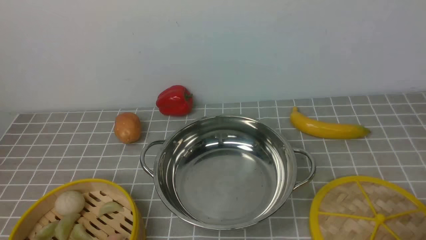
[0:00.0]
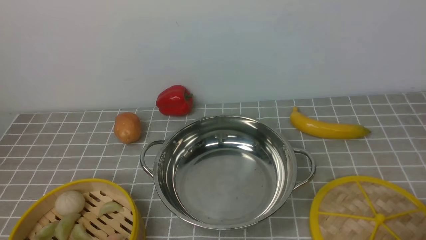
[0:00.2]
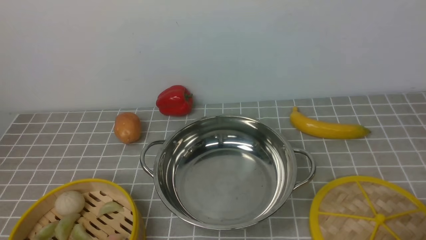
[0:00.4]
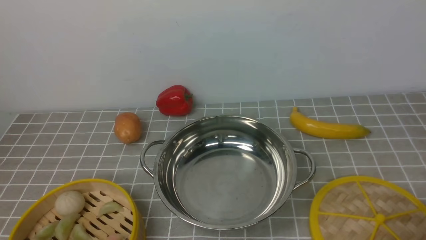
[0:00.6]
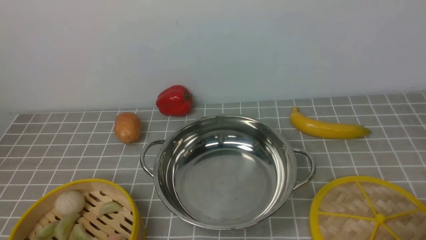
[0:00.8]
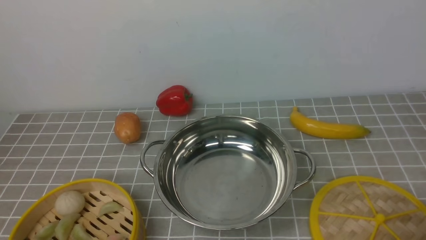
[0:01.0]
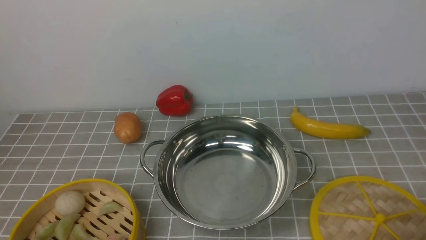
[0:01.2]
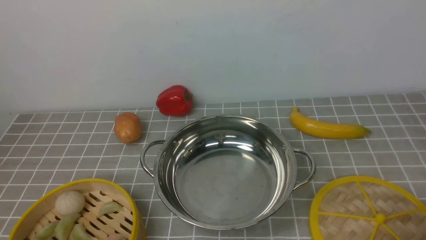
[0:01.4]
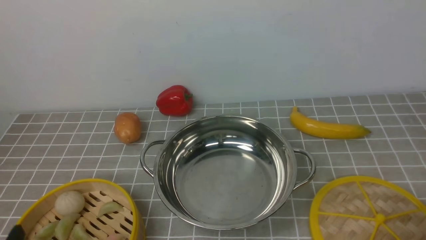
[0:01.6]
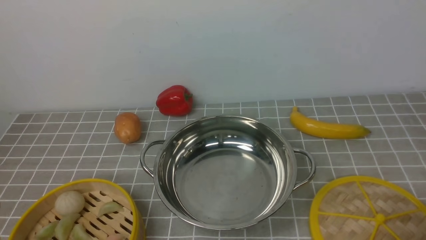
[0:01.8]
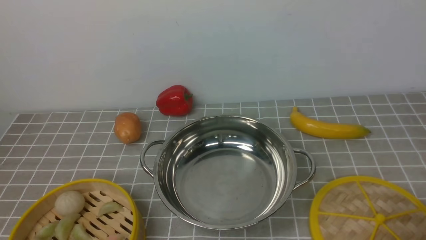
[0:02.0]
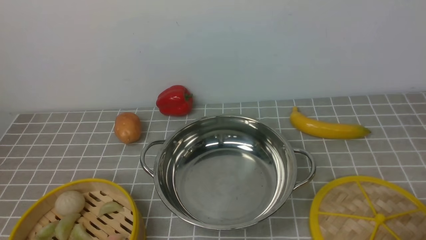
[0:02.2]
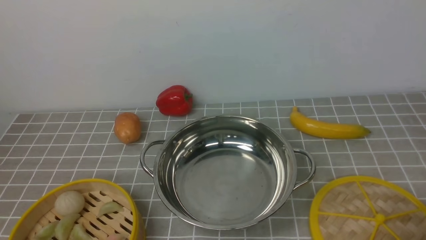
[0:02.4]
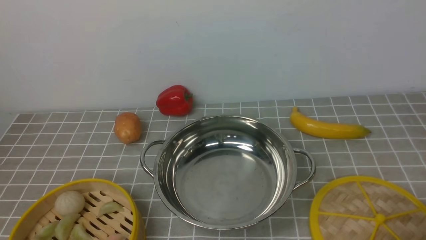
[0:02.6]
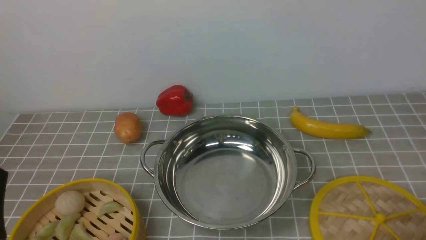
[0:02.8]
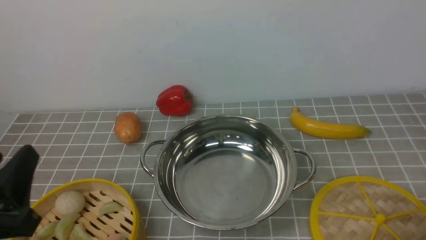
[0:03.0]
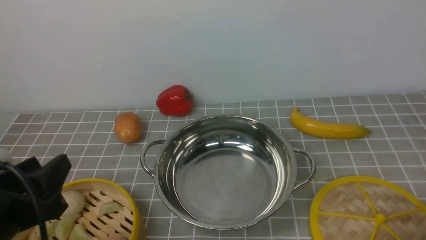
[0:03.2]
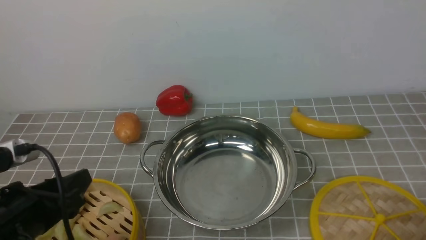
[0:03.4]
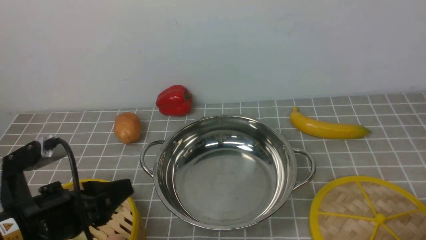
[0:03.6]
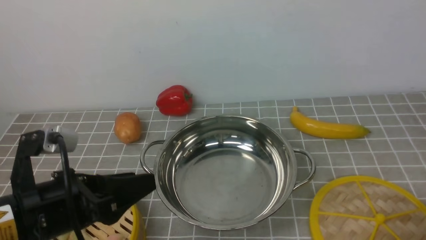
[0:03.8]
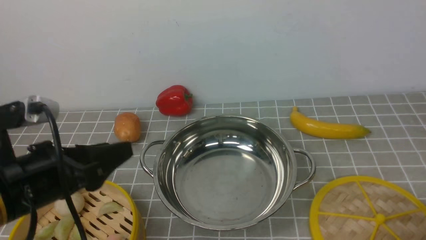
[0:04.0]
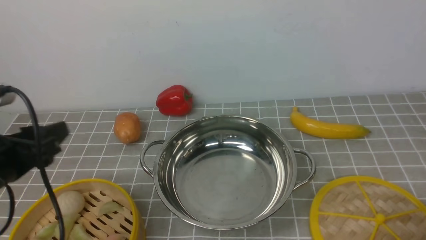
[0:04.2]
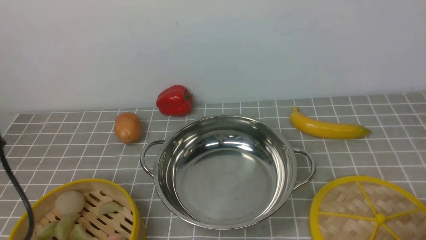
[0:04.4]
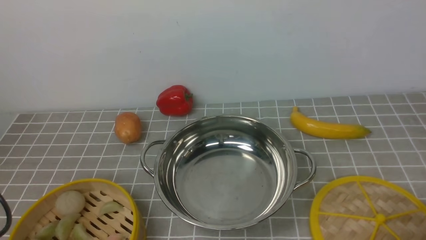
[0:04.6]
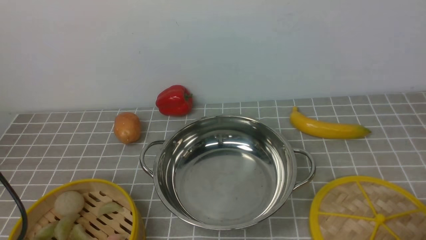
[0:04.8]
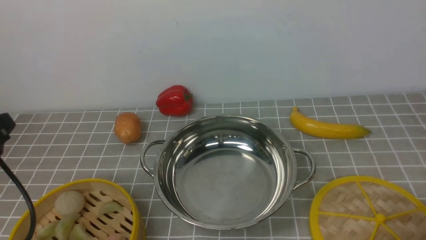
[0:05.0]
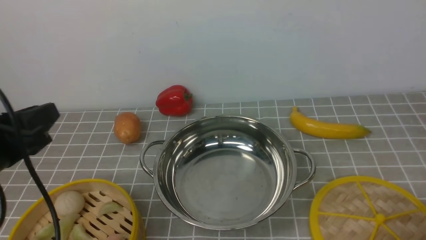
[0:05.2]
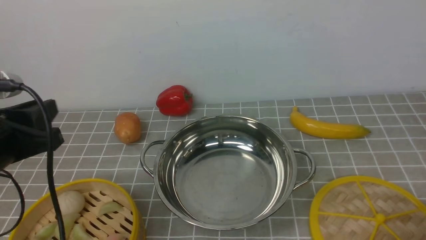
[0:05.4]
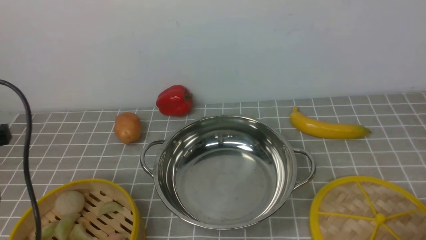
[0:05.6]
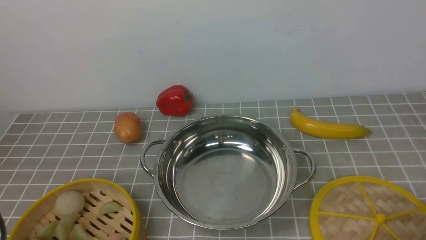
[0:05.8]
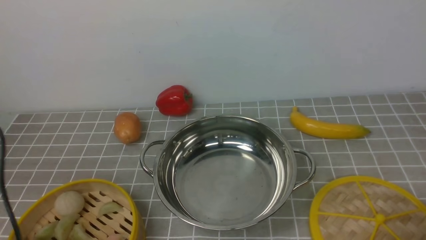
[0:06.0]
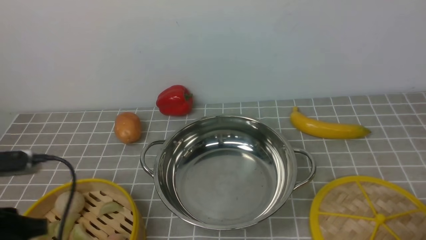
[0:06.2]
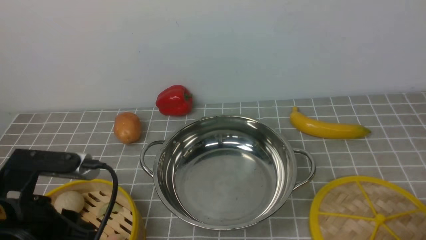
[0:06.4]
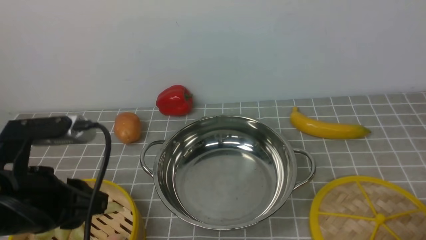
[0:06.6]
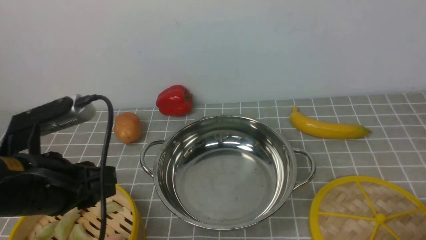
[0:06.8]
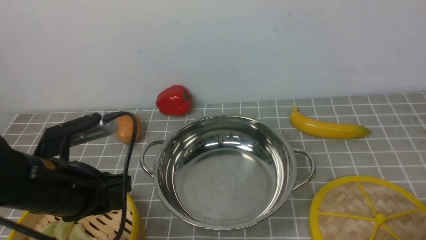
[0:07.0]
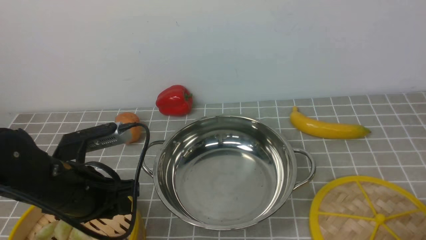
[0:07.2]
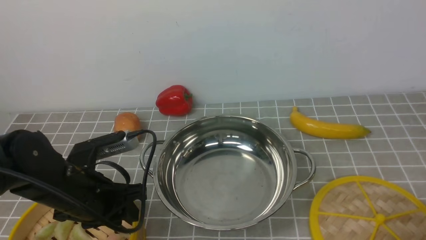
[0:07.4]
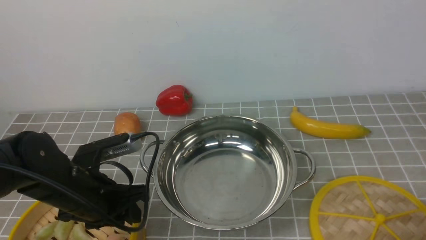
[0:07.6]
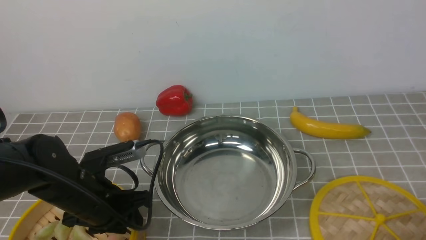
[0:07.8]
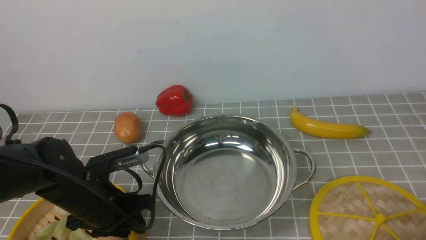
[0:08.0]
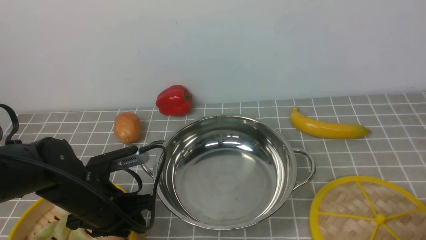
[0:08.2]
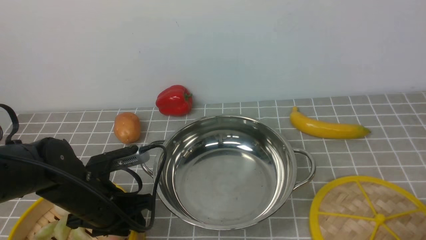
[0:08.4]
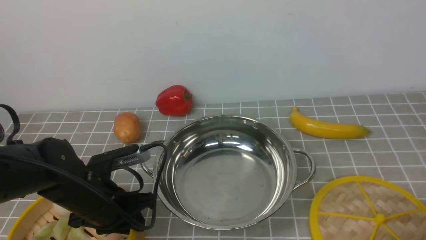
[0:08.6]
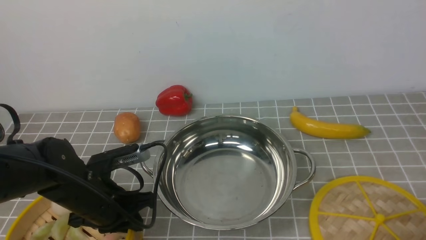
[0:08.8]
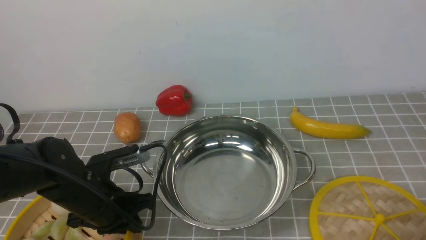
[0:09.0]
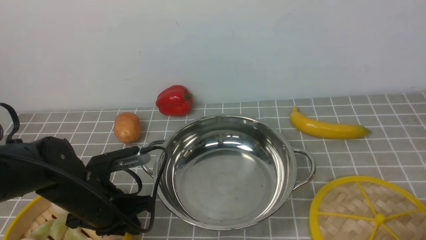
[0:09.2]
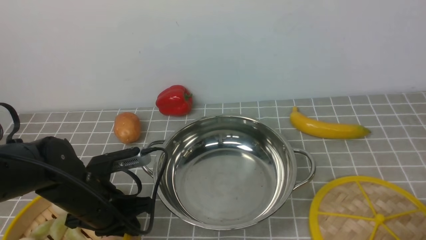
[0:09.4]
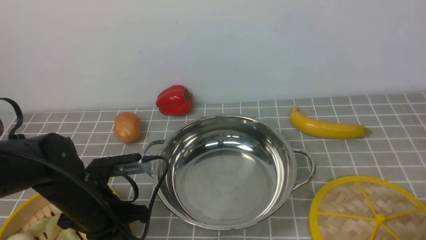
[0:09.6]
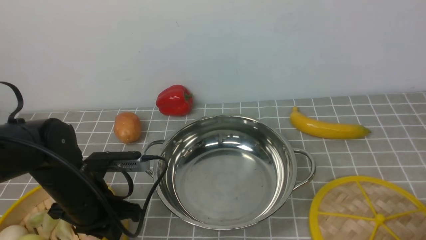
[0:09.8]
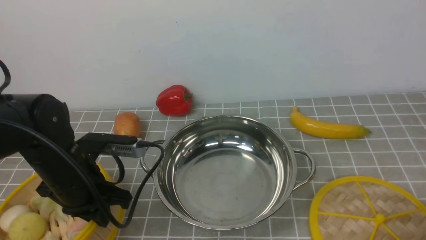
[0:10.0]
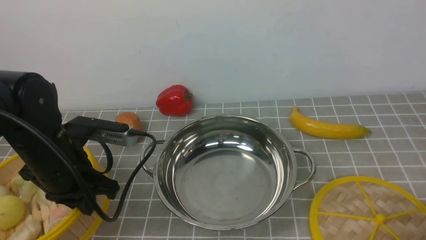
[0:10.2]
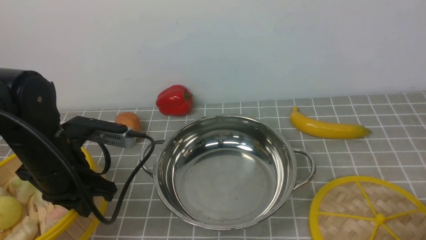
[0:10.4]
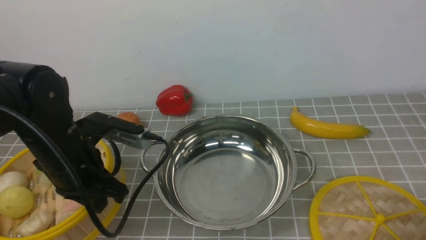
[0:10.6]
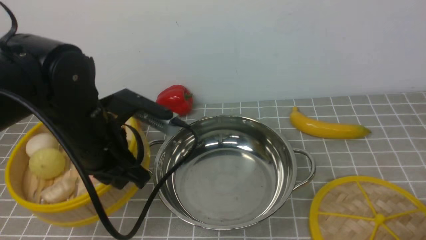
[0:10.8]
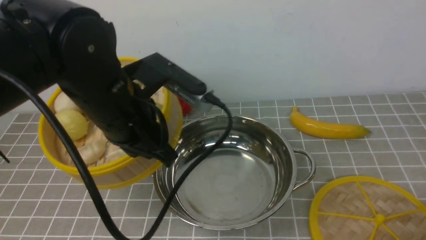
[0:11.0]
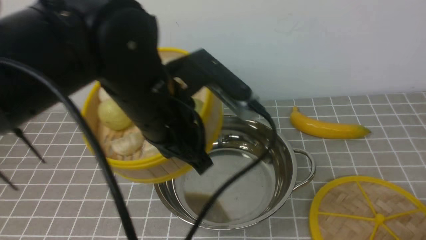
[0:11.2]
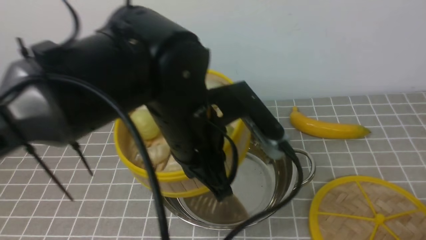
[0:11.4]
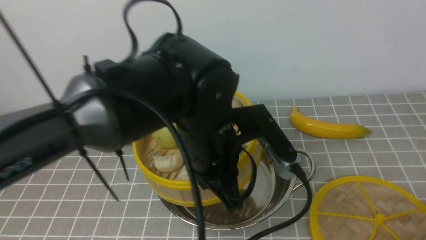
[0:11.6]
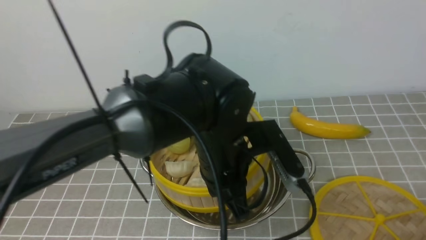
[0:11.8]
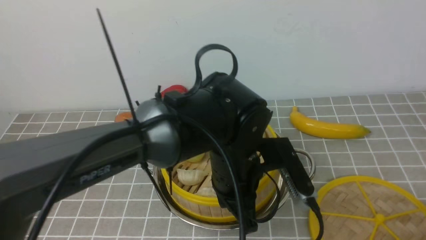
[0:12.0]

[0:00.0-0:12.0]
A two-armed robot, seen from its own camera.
Task of the whole recording: place the steamer in the pot on the grey tablecloth, and put the lid on the steamer.
Step, 0:00.0 to 0:10.0: use the left arm to lift the steamer closest to it.
0:01.6 to 0:03.0: The left gripper travels upward by approximately 10 cm.
0:03.0 to 0:04.4: The left gripper is displaced forward and to the left by approximately 10 cm.
0:04.4 to 0:06.0: The left gripper closes.
0:06.0 to 0:07.6: The left gripper moves to the right, downward and forward, roughly 15 cm.
0:07.6 to 0:09.0: The left gripper closes.
0:09.0 to 0:10.4: The left gripper is displaced upward by about 10 cm.
0:10.4 to 0:12.0: The left gripper shifts about 20 cm to the right.

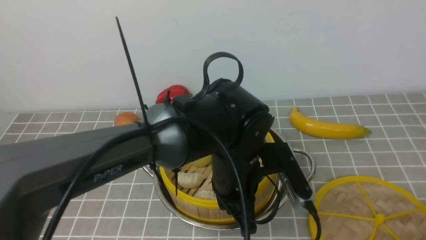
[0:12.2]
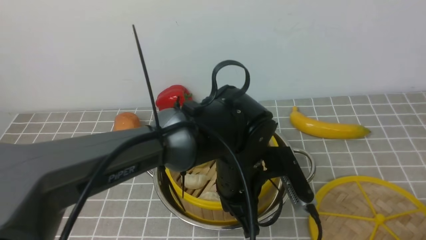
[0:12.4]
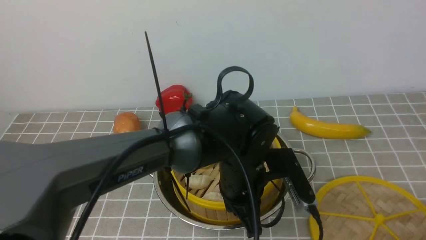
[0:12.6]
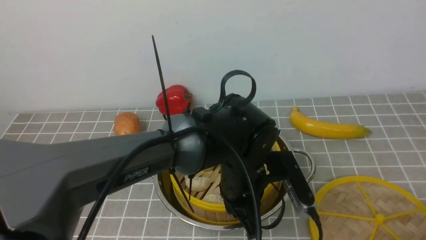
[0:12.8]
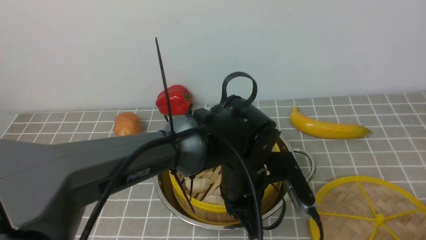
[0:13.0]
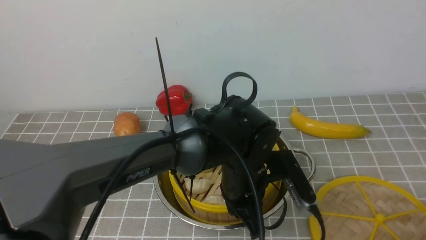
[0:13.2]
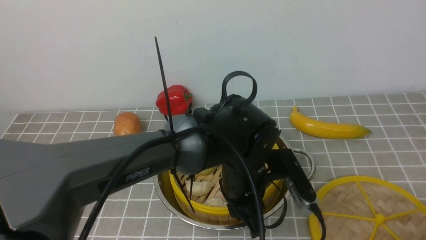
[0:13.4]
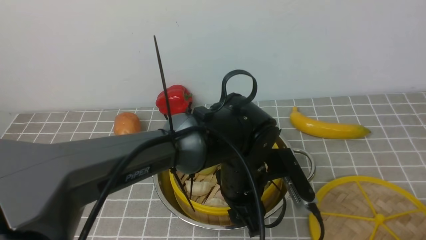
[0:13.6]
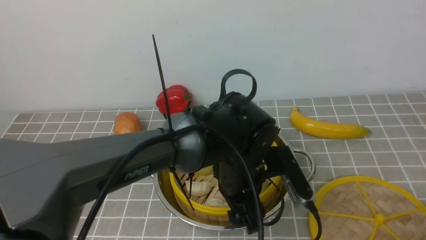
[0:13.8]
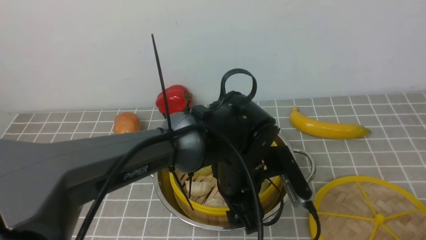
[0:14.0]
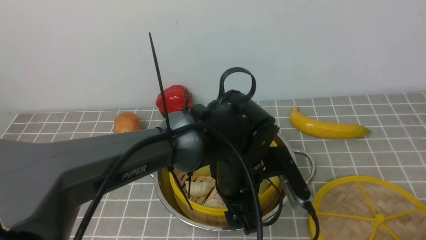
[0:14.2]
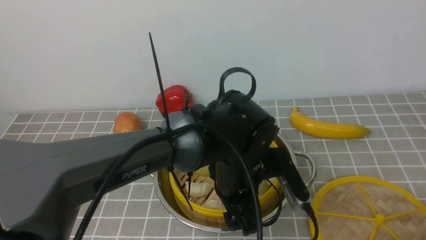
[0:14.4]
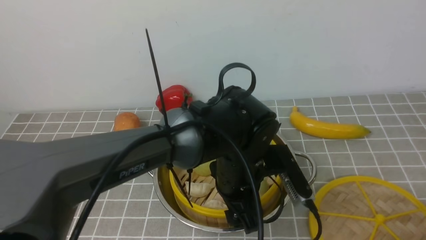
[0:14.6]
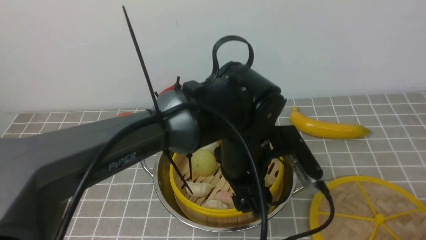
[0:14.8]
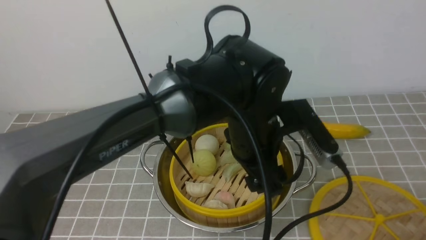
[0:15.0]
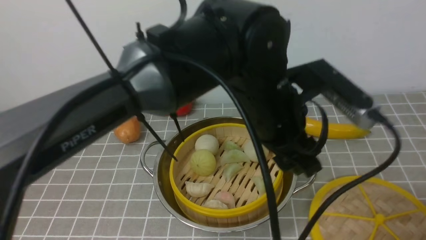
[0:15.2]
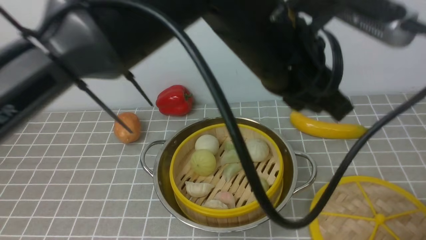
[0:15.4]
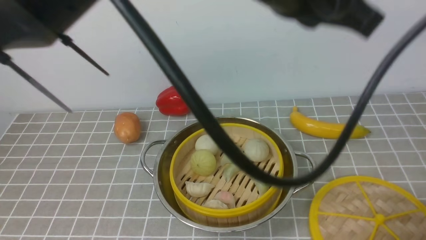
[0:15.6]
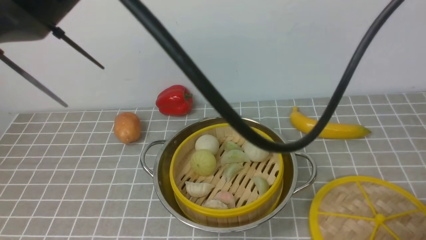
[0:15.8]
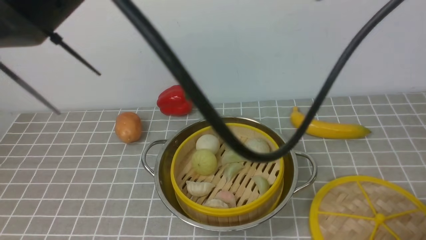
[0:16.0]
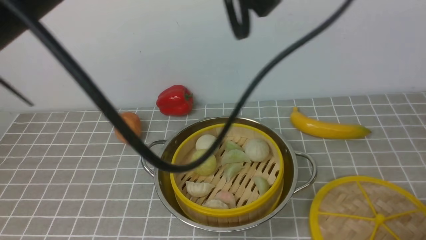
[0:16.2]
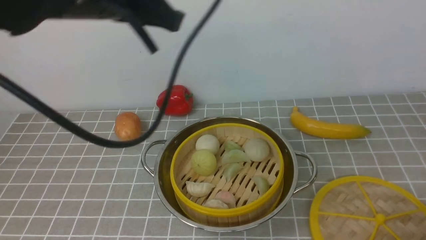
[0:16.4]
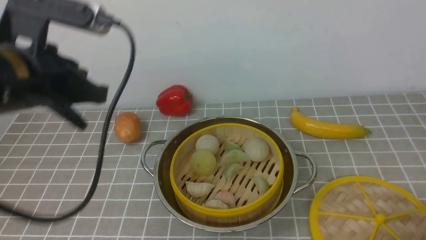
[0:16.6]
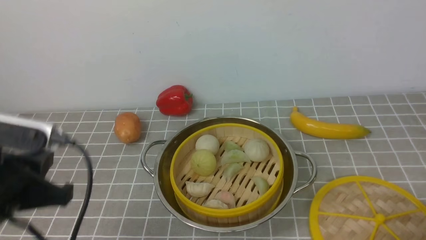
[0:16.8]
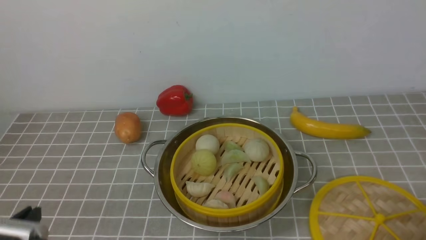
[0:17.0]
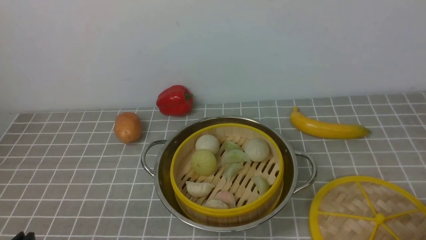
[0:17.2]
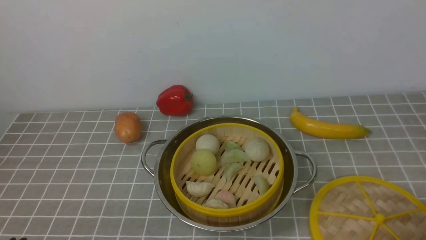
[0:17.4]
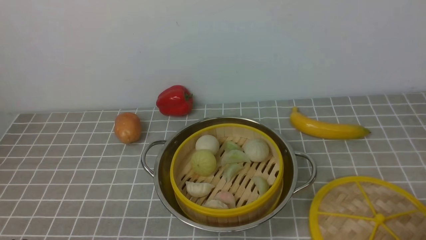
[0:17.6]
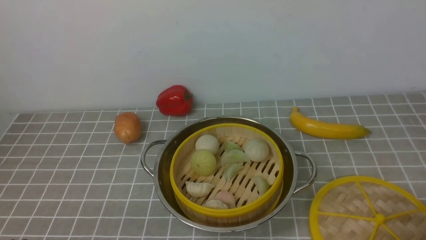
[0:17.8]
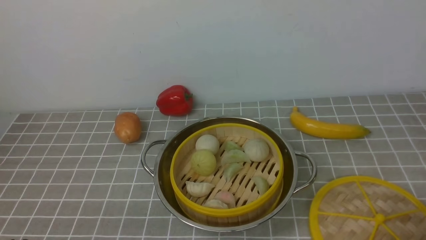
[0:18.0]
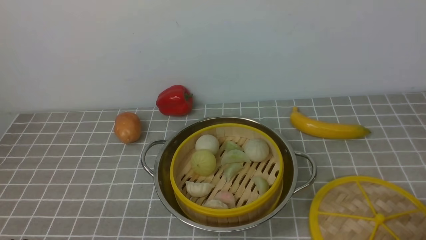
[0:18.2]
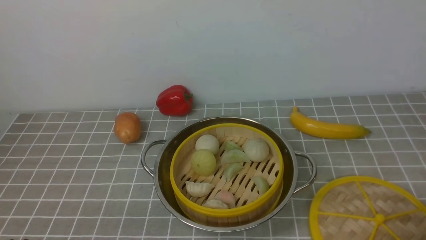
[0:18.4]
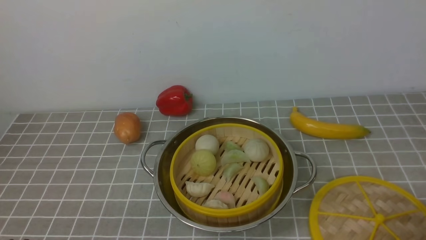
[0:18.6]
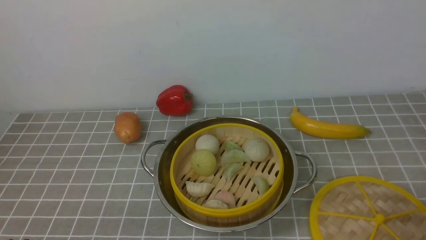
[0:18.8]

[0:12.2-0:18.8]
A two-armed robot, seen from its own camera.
Task of the whole recording: place the steamer in the pot on the grey tablecloth, and put the lid on the steamer.
Step, 0:12.2 to 0:14.6: use the left arm to put the steamer into the iron steamer pot in the middle.
0:12.2 to 0:13.8: The left gripper opens up.
0:13.8 to 0:15.4: The left gripper moves upward, roughly 20 cm, and closes up.
0:15.4 to 0:17.2: The left gripper is displaced to the left, downward and backward by about 40 cm.
